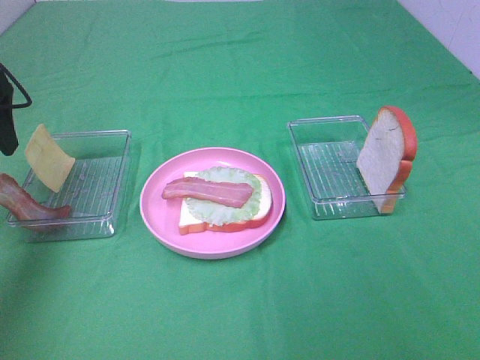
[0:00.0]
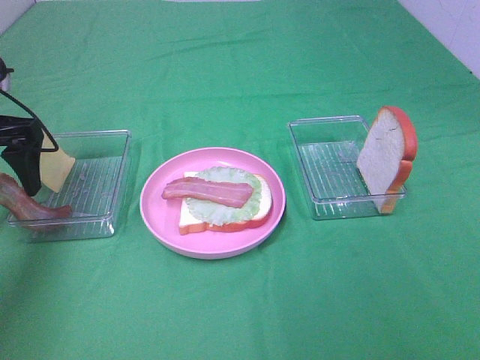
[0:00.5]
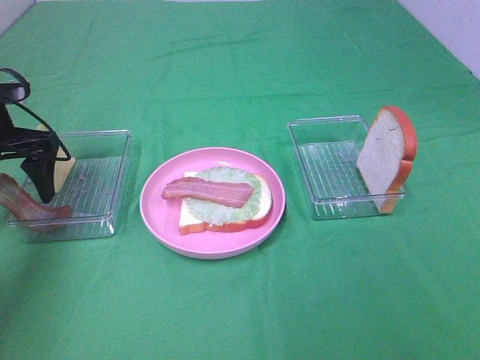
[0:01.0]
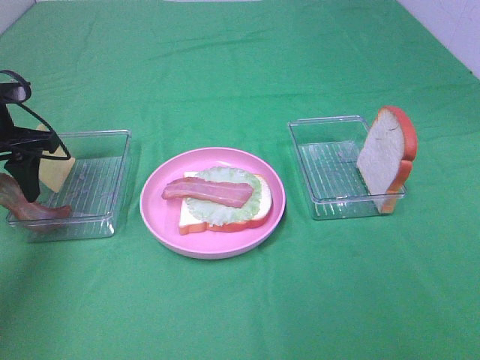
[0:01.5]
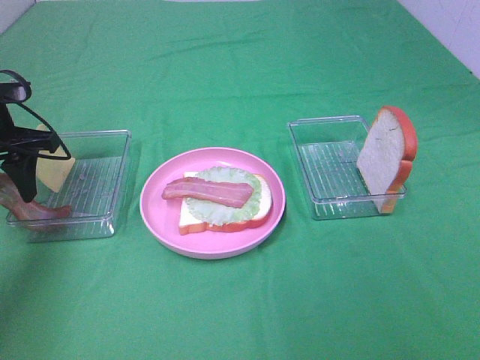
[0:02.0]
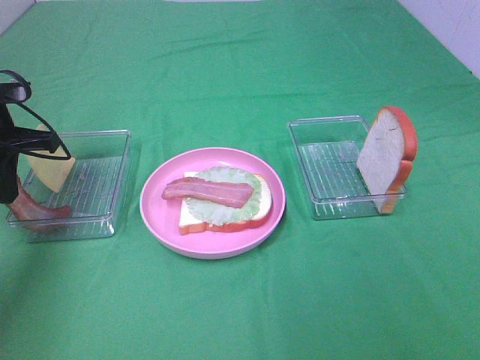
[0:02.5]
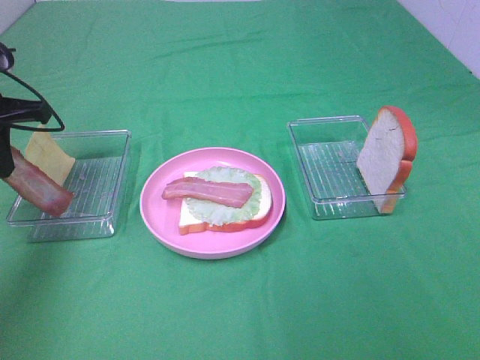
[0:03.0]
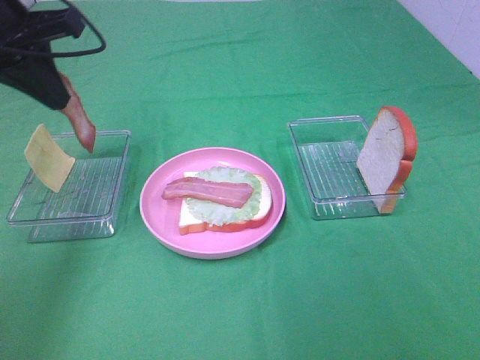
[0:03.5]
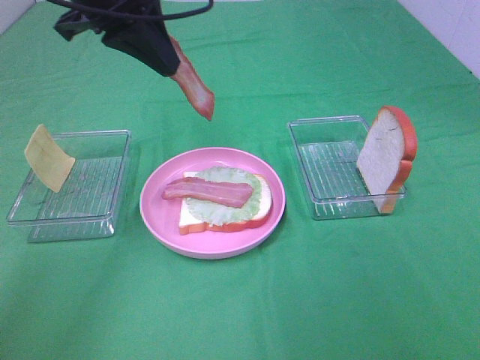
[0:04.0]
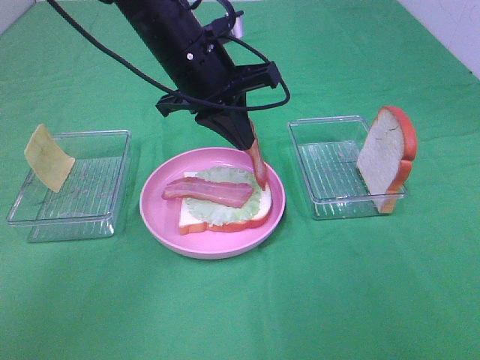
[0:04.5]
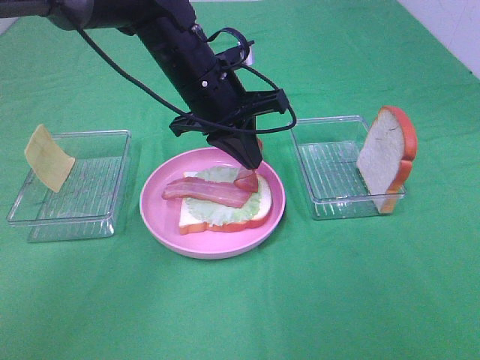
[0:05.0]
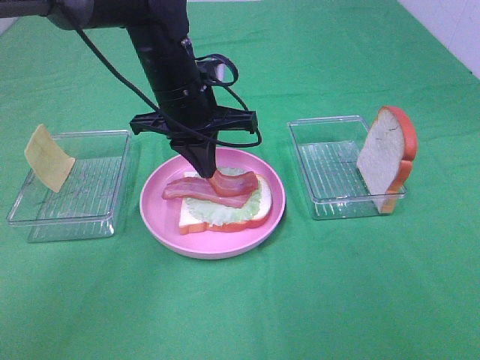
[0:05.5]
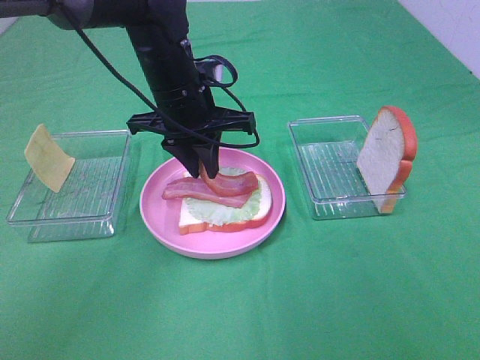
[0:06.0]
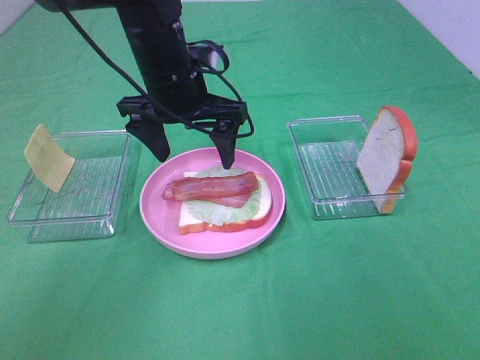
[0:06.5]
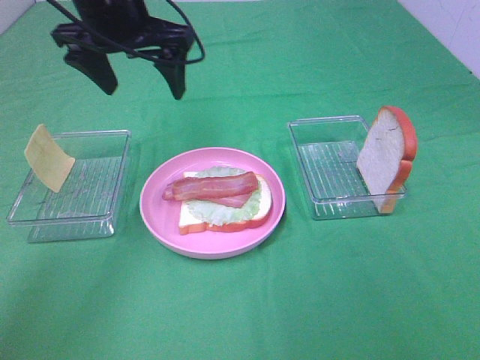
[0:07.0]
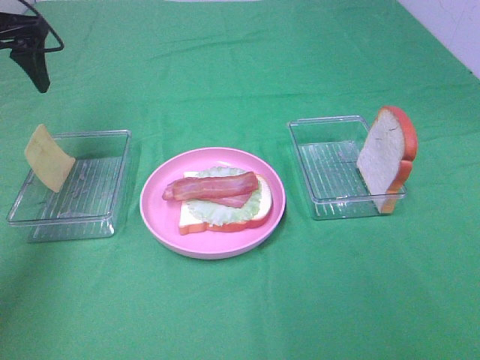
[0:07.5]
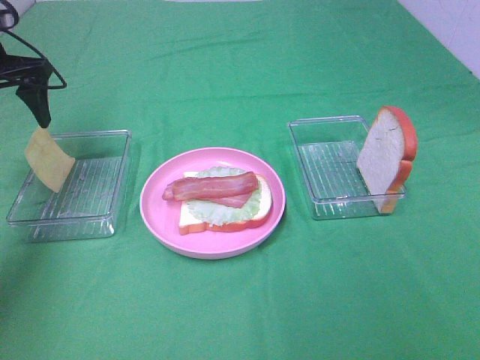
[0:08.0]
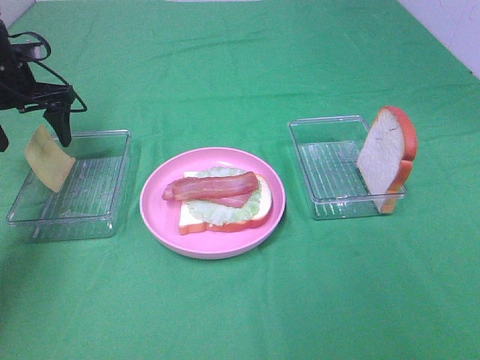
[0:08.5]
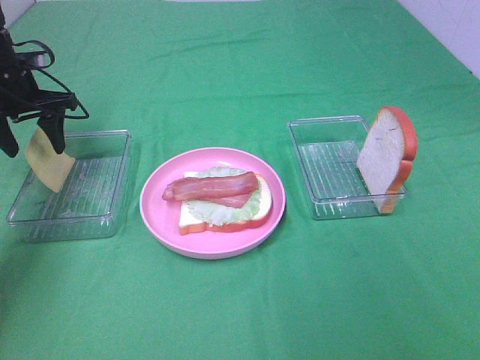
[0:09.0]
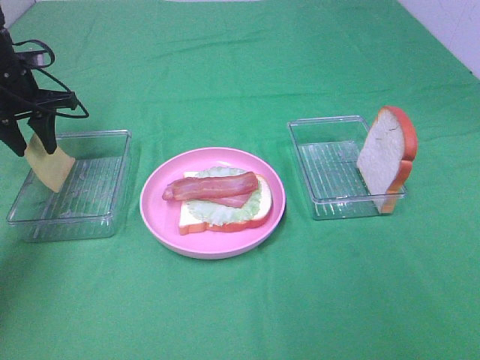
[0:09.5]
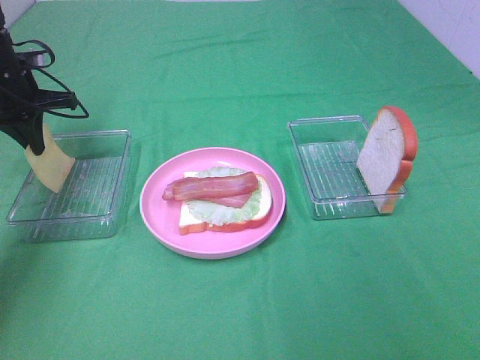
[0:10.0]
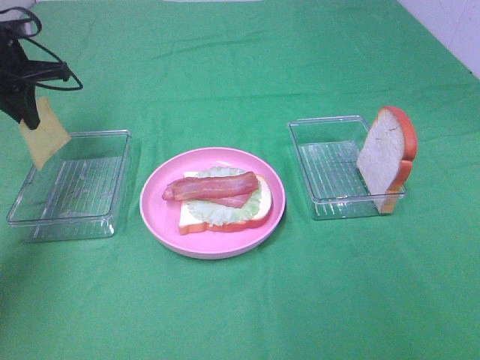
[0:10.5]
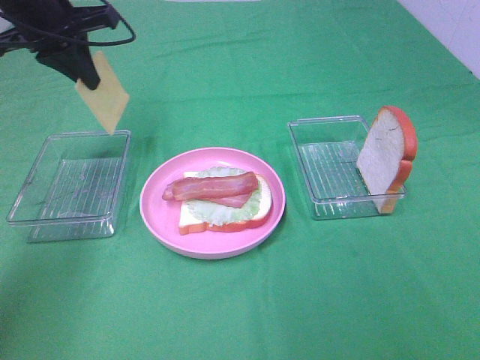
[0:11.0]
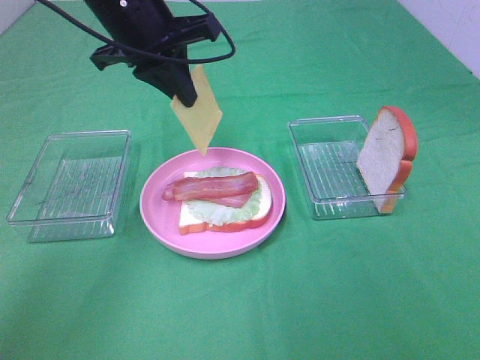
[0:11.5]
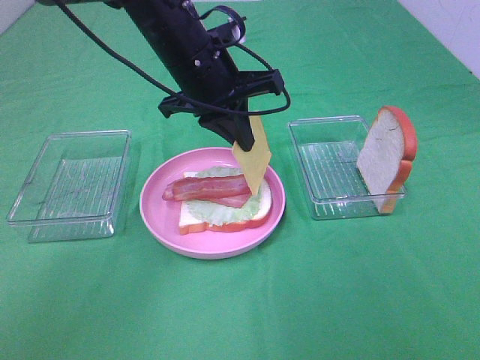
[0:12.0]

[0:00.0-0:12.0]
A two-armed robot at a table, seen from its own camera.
Task of the whole recording: Make sandwiches.
Step, 0:00.0 to 0:02.5: Left hand:grab the bacon.
Step, 0:03.0 to 0:06.0: Left hand:place bacon on bacon.
Step, 0:06.5 to 0:10.0: Left hand:grab the cheese slice.
0:00.0 to 0:02.0: The left gripper is displaced downward by some 10 cm, and closes its fingers.
0:02.0 to 0:04.0: The left gripper is displaced to the right and upward by approximately 20 cm, and closes its fingers.
0:04.0 to 0:06.0: The left gripper shifts roughly 15 cm downward and to the right.
0:06.0 to 0:08.0: The left gripper moves to the left, some 25 cm, and opens.
0:08.0 to 0:10.0: The left gripper travels downward by about 5 cm, and closes its fingers.
0:10.0 to 0:12.0: The left gripper goes about 25 cm to the right.

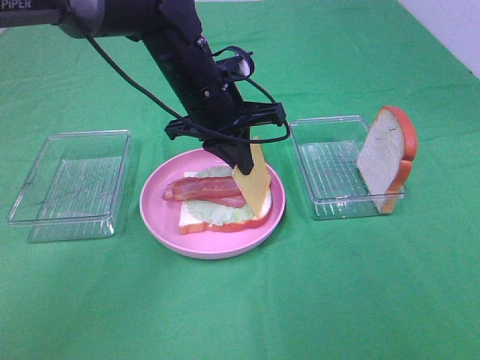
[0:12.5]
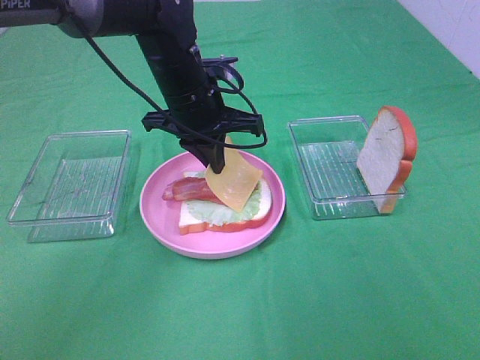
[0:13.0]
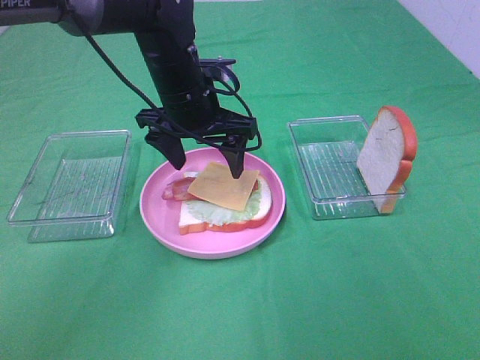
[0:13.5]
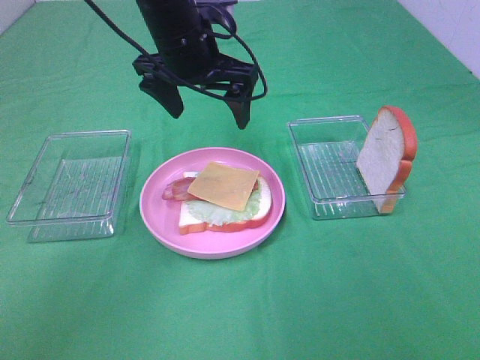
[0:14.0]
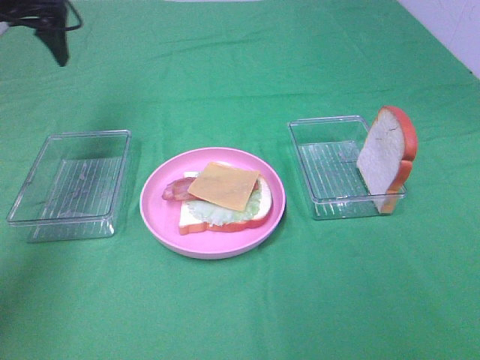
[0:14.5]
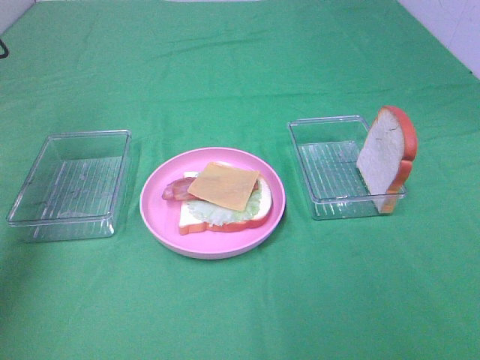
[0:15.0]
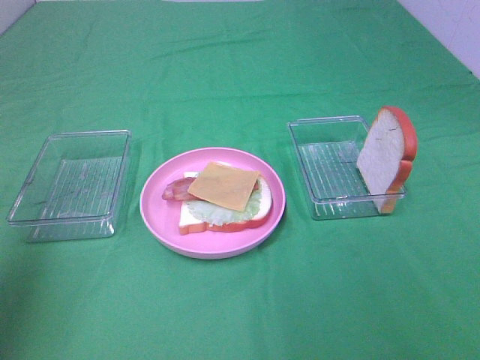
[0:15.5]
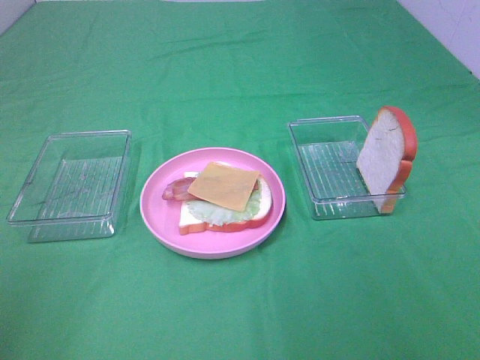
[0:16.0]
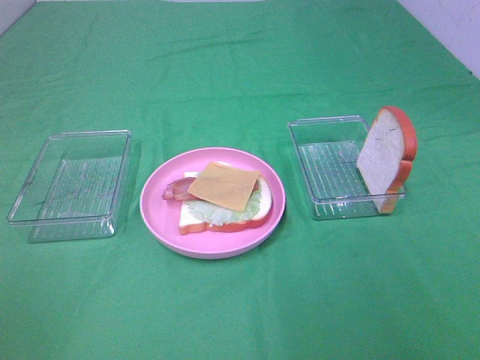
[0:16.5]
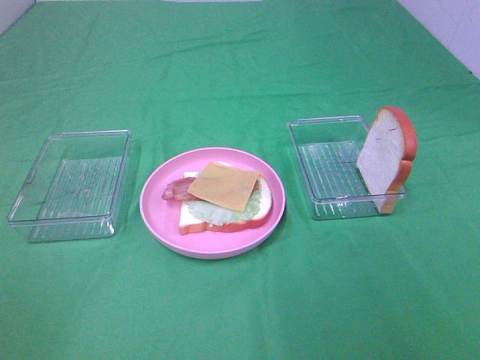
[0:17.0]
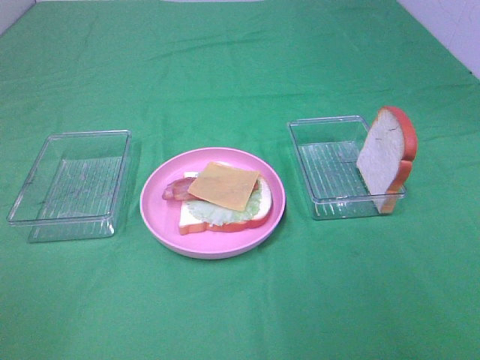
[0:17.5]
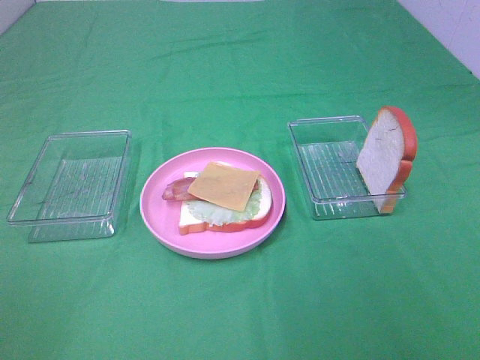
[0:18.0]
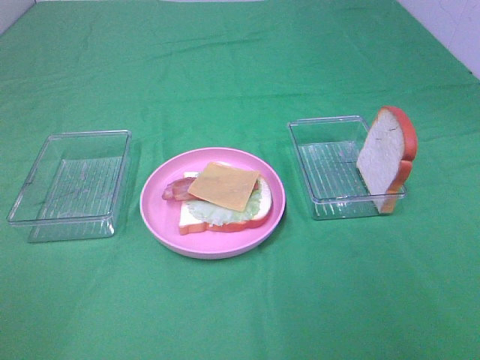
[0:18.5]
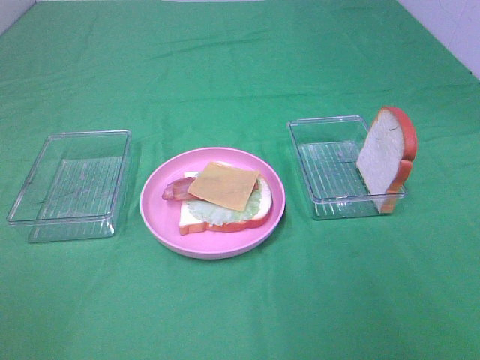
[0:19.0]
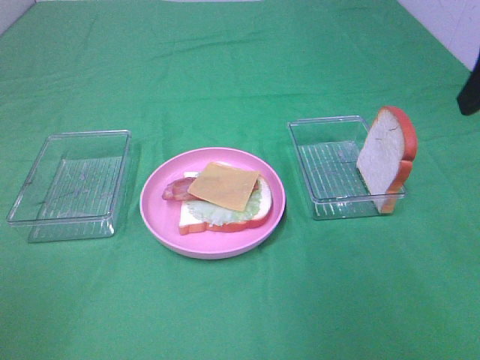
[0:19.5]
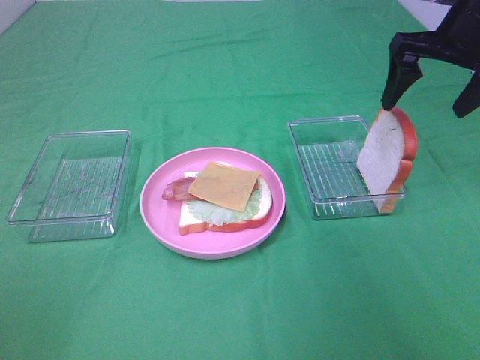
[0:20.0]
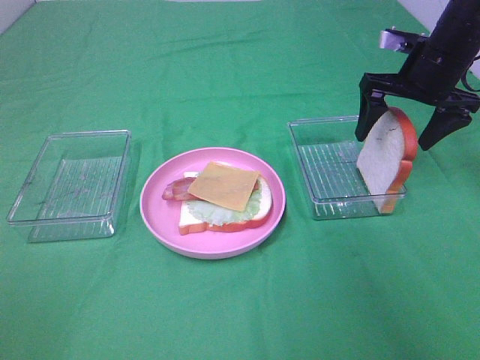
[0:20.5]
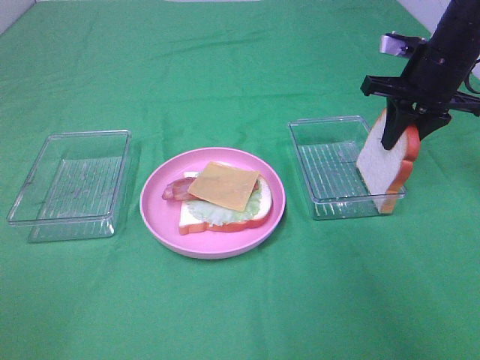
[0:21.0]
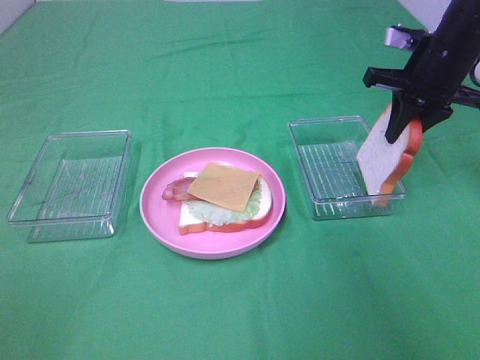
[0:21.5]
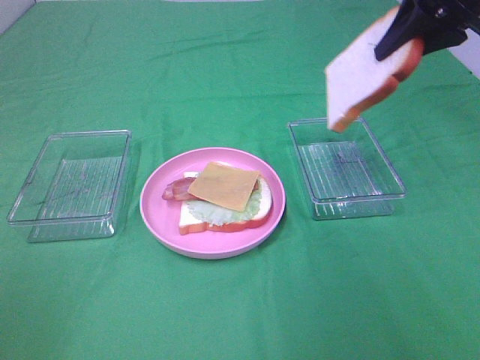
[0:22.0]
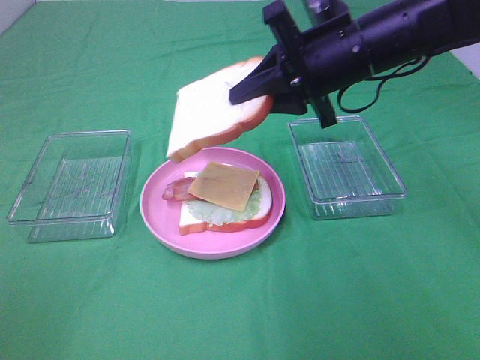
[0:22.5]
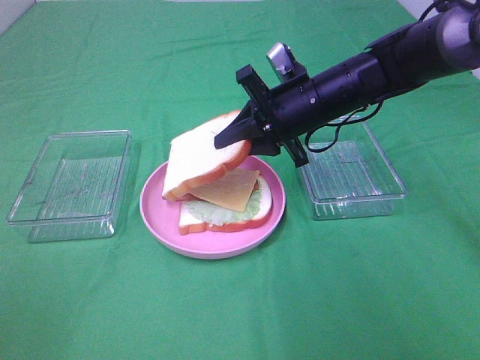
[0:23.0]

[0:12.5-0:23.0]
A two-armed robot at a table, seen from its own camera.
Task of the whole recording: Make sandwiches.
Step, 0:14.0 to 0:21.0: Right hand:grab the bread slice.
0:12.5 to 0:14.5: The left gripper goes approximately 30 cm to the left and upward, and opens.
0:14.5 to 0:16.5: The left gripper travels backward by some 50 cm.
0:19.0 to 0:21.0: The right gripper shifts about 35 cm forward, and closes its fingers.
0:21.0 to 0:23.0: The right gripper shifts roughly 15 cm to the left, and travels upward and back again, roughly 15 cm each way.

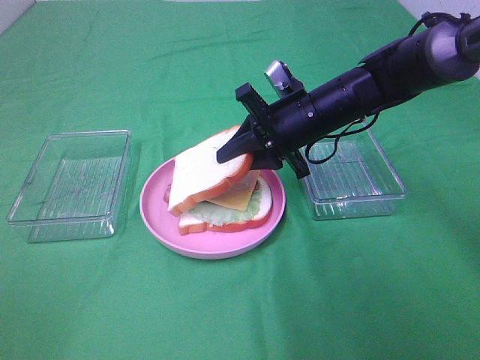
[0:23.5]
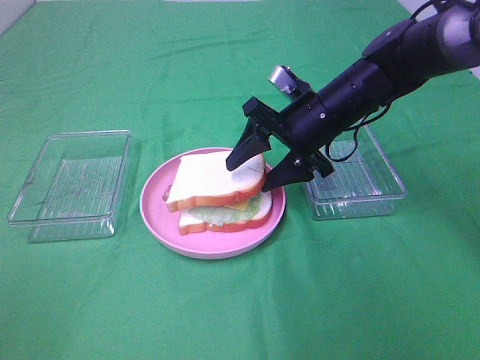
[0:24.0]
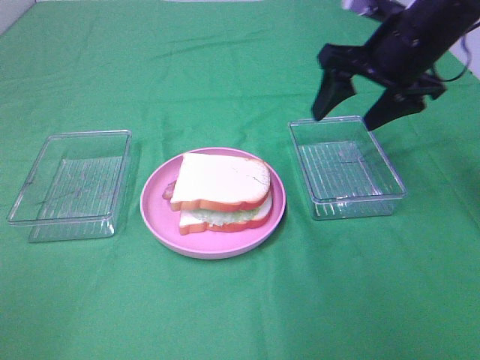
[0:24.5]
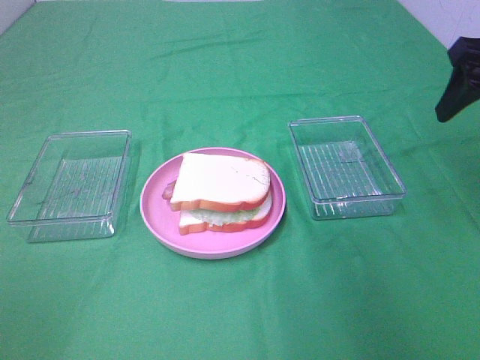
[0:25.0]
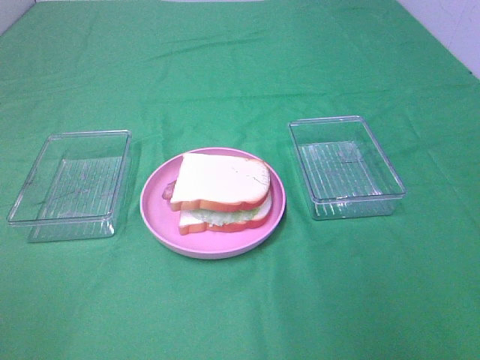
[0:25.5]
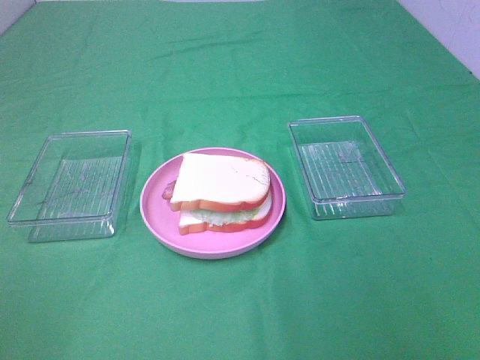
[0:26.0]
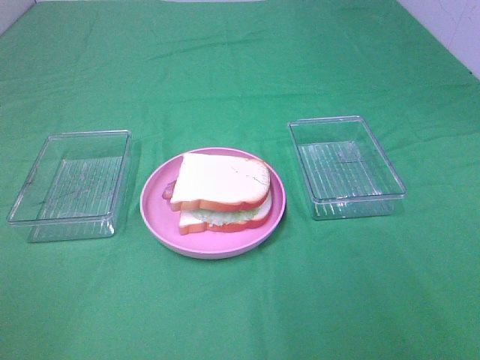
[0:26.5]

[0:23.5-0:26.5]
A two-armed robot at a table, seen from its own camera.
Task of the whole recording: Make sandwiches.
0:23.5 to 0:25.0: The right gripper moves to the right, upward and backward, some 25 cm, and opens.
0:25.0 to 0:26.5: The right gripper shifts some 30 cm backward.
